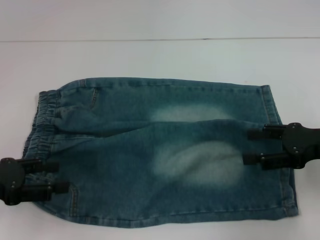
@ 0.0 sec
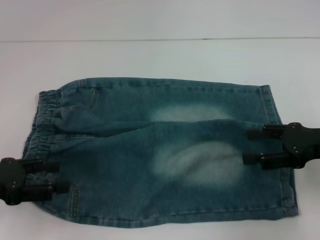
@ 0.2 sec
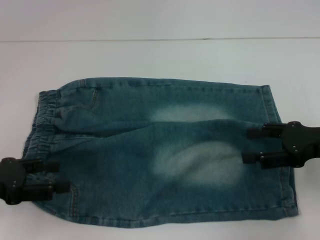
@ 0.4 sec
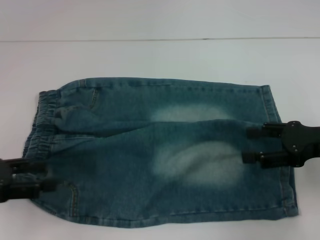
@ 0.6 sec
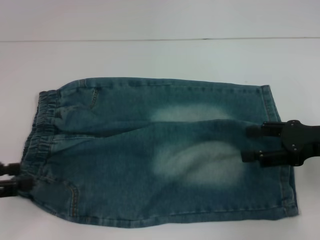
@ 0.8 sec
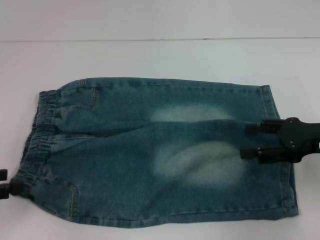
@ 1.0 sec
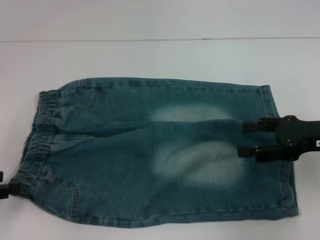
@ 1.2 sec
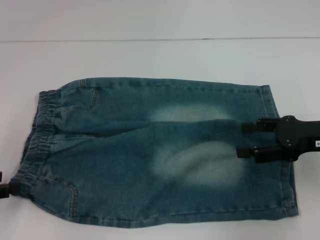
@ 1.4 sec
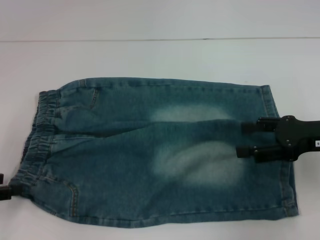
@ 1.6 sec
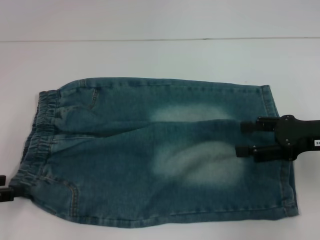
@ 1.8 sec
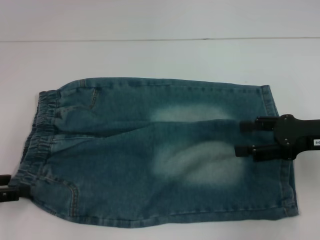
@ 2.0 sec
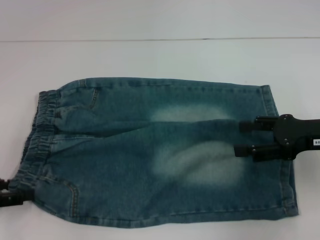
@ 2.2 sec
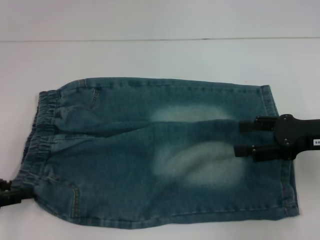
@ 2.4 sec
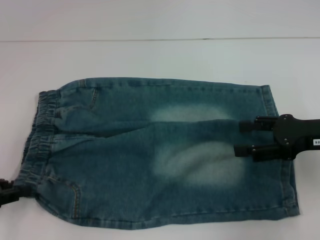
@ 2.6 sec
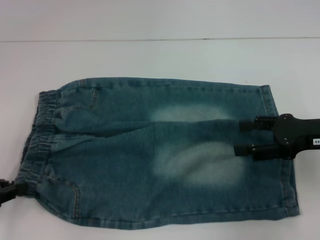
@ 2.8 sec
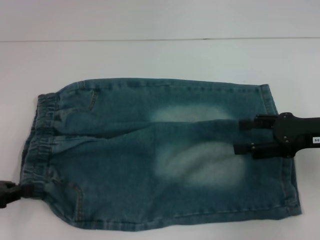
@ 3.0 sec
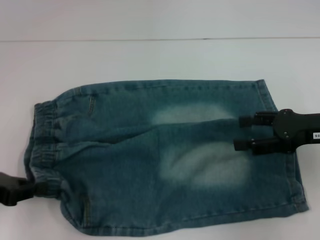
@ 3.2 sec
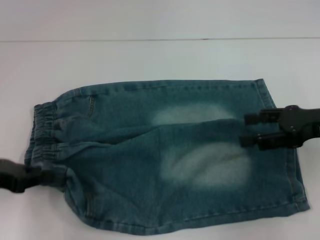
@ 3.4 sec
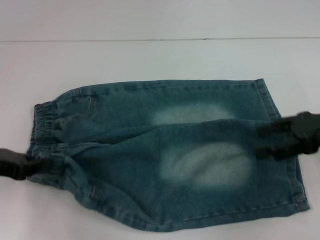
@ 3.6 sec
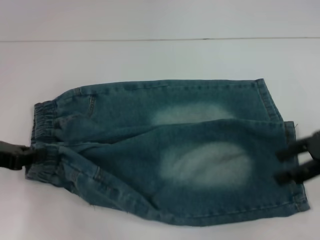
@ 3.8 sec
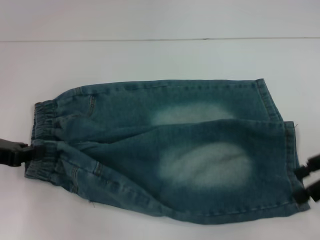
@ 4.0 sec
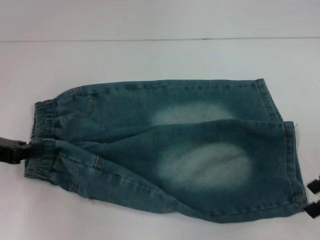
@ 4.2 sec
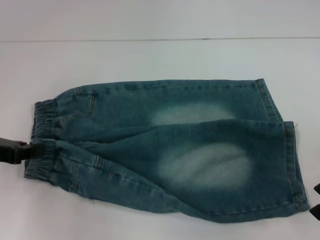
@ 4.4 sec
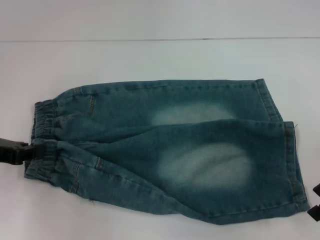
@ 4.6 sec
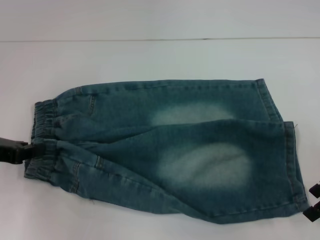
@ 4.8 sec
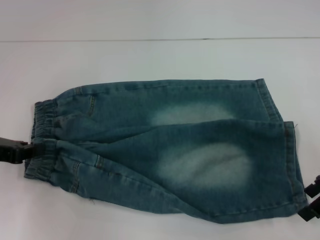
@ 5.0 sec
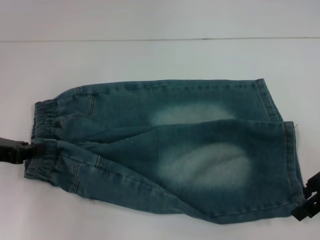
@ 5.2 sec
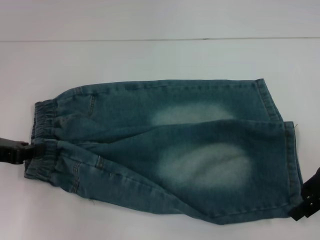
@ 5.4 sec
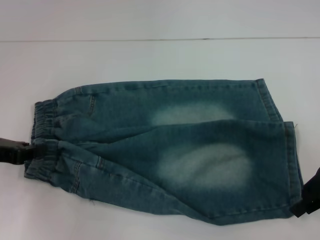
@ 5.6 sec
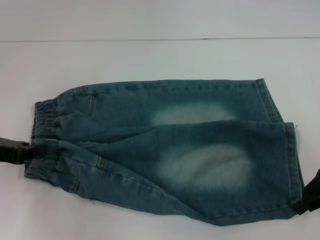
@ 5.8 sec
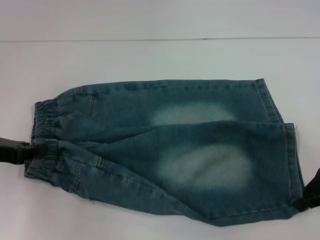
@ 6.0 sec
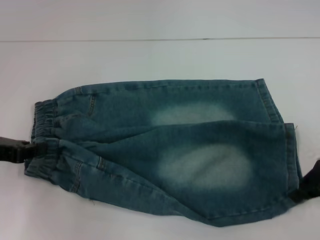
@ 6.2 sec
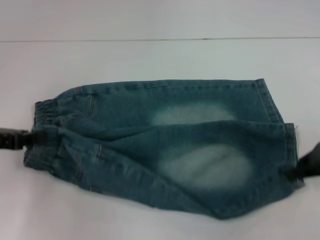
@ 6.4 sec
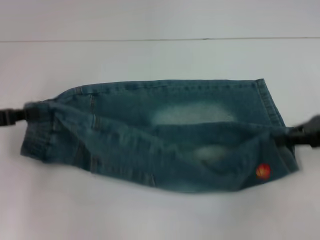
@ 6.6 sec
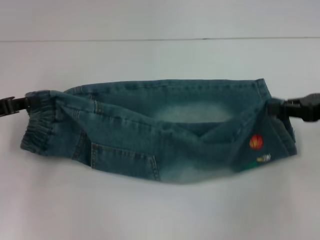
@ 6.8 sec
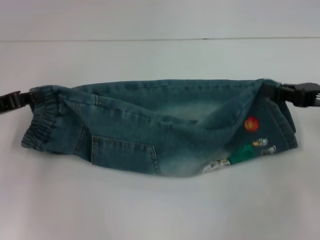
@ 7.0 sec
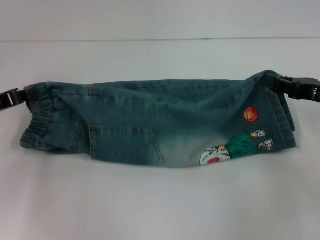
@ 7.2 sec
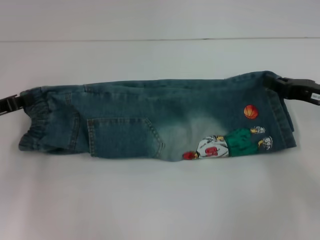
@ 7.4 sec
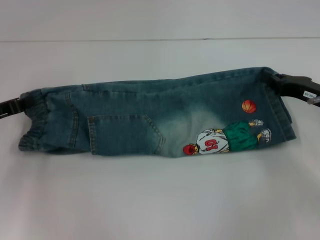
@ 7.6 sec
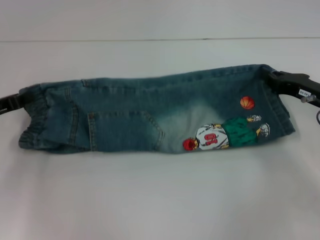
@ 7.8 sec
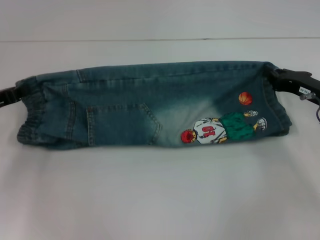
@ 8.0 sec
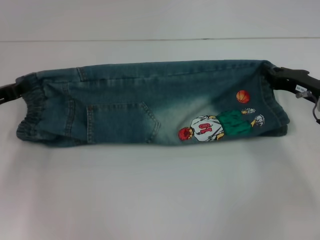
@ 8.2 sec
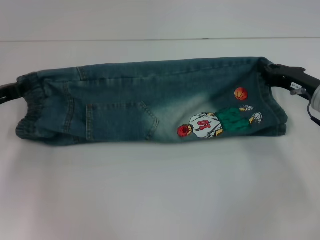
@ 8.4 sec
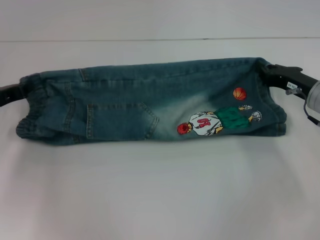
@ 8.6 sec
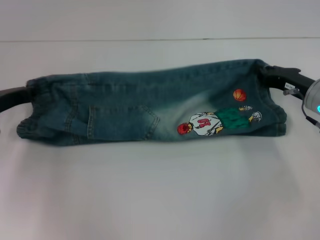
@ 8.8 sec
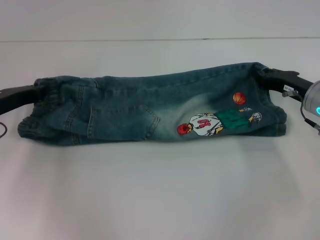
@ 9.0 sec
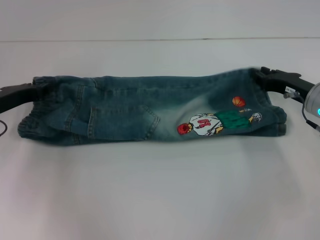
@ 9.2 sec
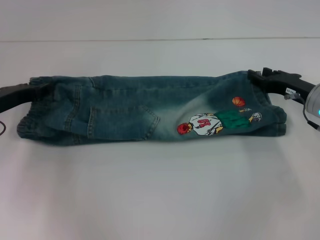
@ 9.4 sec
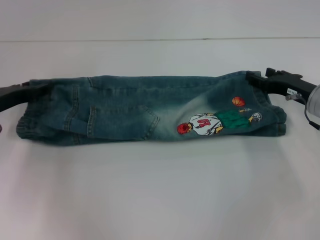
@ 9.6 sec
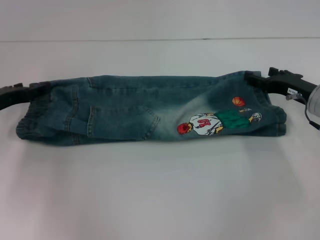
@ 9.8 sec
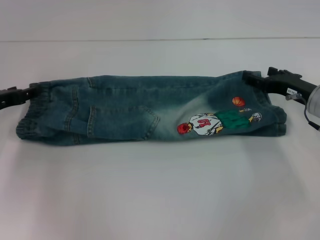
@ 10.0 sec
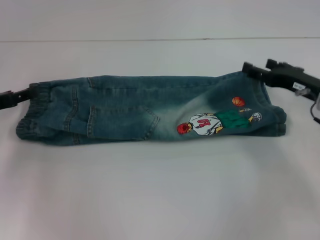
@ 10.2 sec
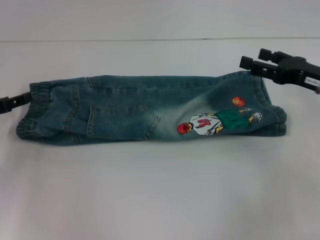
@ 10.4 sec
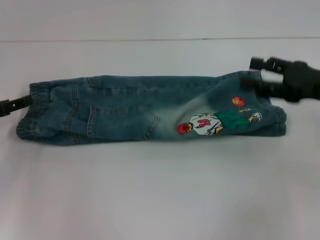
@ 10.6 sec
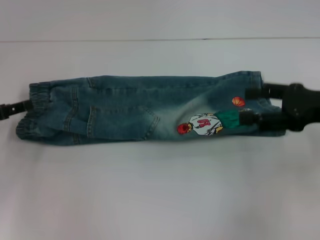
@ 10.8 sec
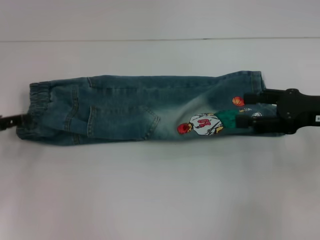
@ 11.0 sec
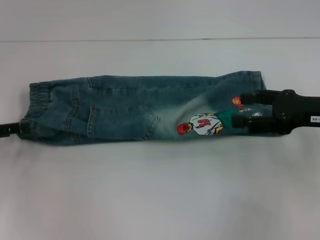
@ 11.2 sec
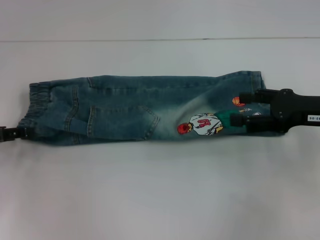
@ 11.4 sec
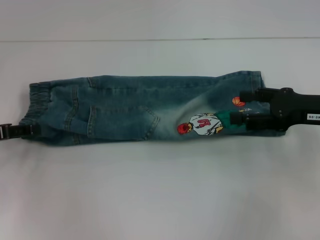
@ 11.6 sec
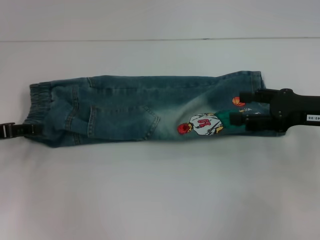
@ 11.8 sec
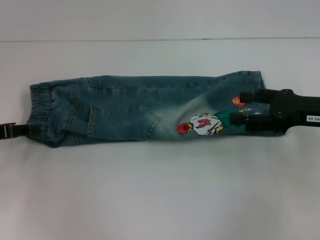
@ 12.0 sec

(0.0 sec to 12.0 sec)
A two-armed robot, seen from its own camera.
Step, 0.0 sec - 2.6 sec: Hold the lower left waistband with your left hand.
Step, 2.8 sec - 5.8 sec: Grab the lower right pant leg with your right hand.
Step, 6.0 sec - 9.2 sec: Fold upward with your right hand.
Step, 9.4 sec - 9.6 sec: Fold upward with your left hand.
0.0 sec - 1.6 sec: The left gripper moves to the left, approximately 5 cm.
1.6 sec - 3.0 sec: The left gripper closes its fingers.
3.0 sec - 4.4 sec: The left gripper changes place by some 5 cm.
4.4 sec - 6.0 sec: The right gripper closes.
6.0 sec - 7.6 sec: The right gripper is displaced downward by about 5 cm.
7.6 sec - 9.0 sec: The grippers move only a little.
9.0 sec - 10.4 sec: The right gripper goes roughly 5 cm upward, and opens. Meanwhile the left gripper shifts roughly 5 cm to the left, and opens its fingers.

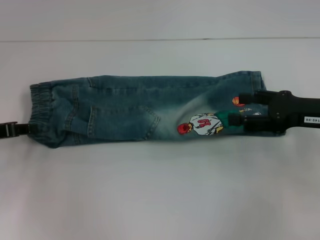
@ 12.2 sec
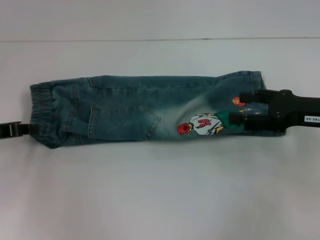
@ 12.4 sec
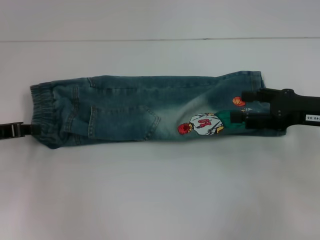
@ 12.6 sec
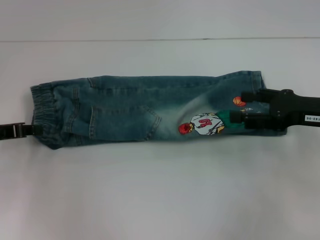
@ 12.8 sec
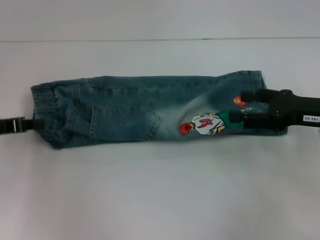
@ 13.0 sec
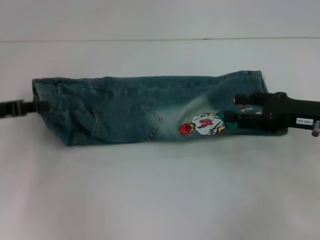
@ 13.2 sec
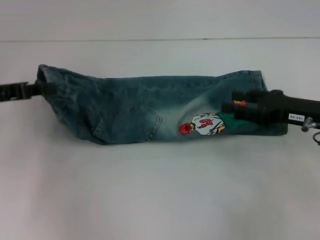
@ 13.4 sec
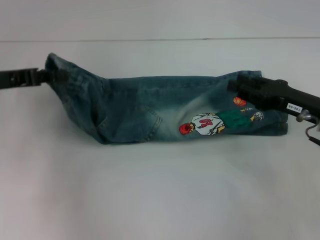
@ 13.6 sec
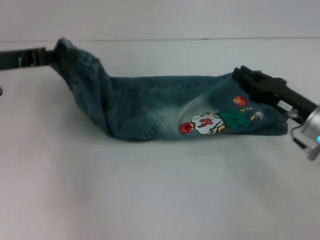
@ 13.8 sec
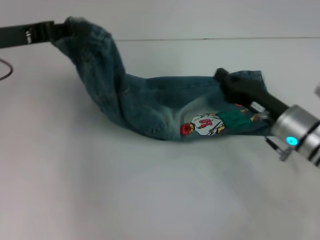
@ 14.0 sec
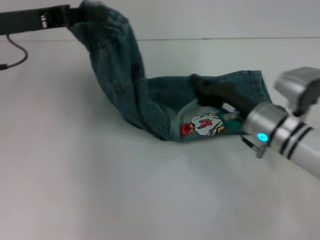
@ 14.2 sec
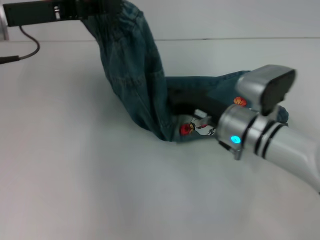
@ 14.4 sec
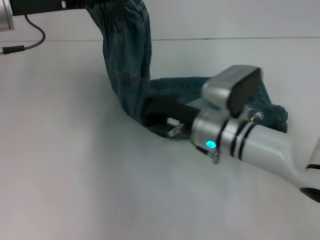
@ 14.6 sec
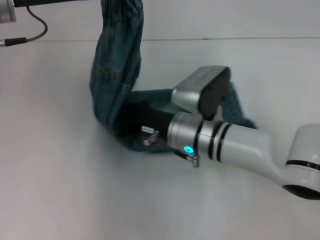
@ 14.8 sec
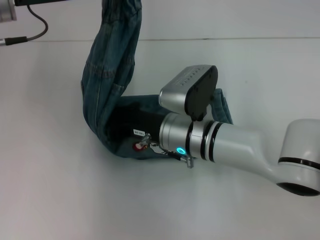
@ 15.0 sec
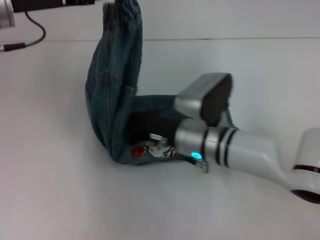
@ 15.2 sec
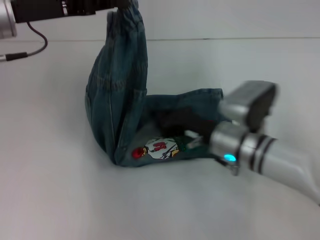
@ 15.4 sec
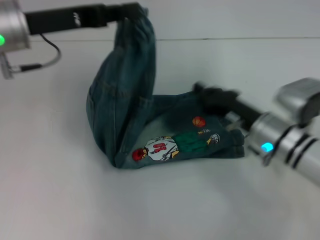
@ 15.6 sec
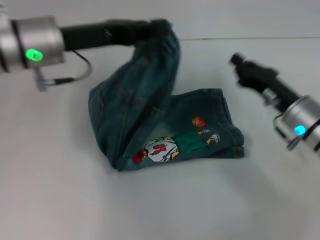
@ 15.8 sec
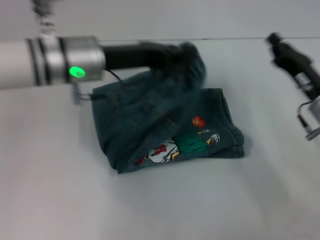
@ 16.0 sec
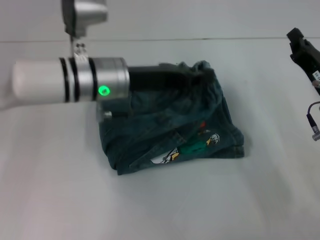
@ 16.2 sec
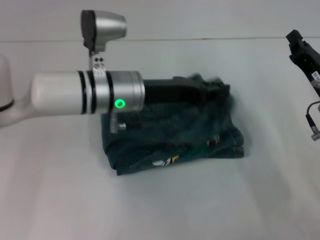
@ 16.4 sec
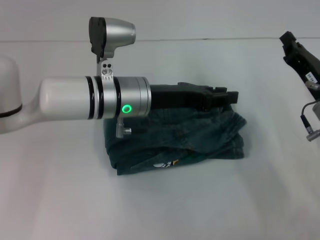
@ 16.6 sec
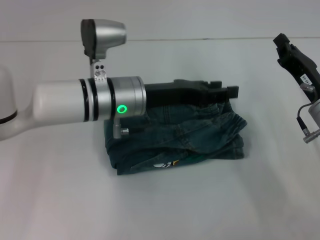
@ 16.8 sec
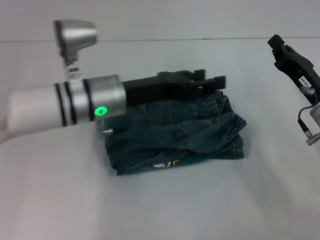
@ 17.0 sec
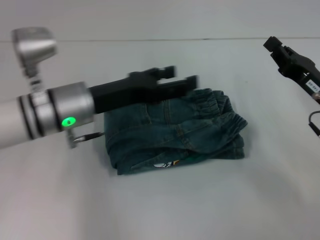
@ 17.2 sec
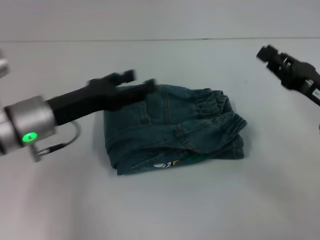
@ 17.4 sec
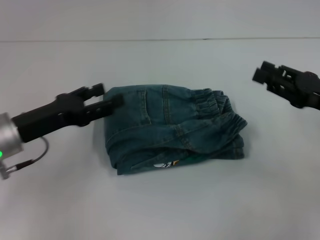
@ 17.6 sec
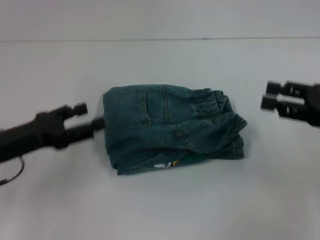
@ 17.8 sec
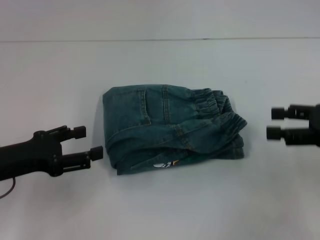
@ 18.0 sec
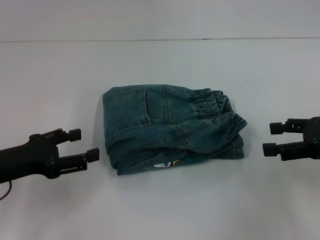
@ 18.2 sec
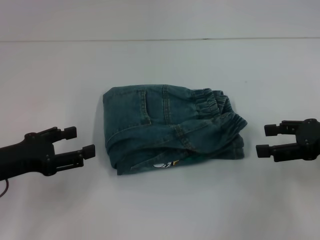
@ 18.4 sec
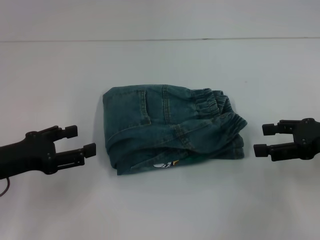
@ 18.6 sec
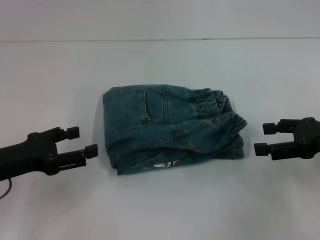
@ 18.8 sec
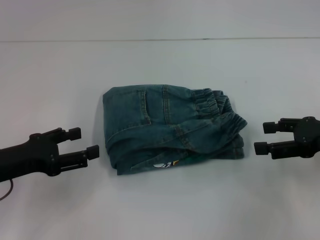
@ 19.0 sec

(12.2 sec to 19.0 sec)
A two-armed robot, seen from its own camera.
Step, 13.0 sec - 15.2 sec: Press the middle of the pants with your right hand.
Step, 15.4 sec - 16.6 sec: Fold to the right with your left hand.
12.2 sec - 13.6 sec: The left gripper is displaced upward by about 5 cm, and closes.
13.6 sec - 15.0 sec: The left gripper moves to the right and upward, some 10 cm. Meanwhile the right gripper travels to the left by roughly 25 cm, and closes up.
15.0 sec - 16.2 sec: The right gripper heads to the right, covering about 20 cm. The left gripper heads to the right and downward, covering about 15 cm.
16.2 sec - 17.6 sec: The left gripper goes approximately 15 cm to the left and backward, and opens its fingers. Meanwhile the right gripper goes roughly 5 cm upward.
17.6 sec - 19.0 sec: The left gripper ends up about 5 cm from where it was, while the right gripper opens.
